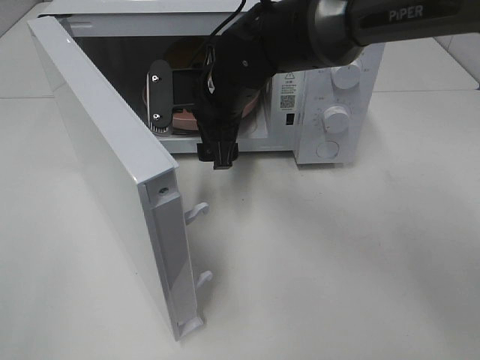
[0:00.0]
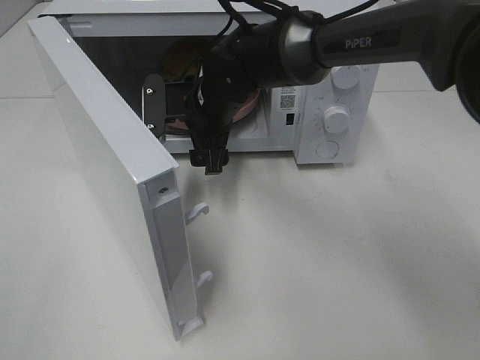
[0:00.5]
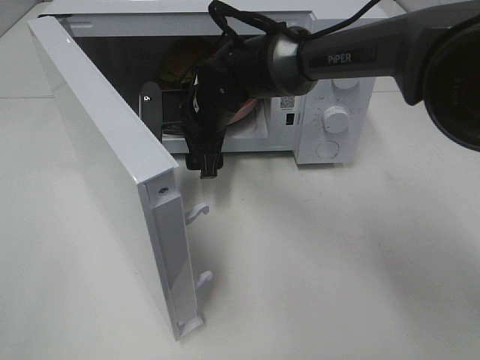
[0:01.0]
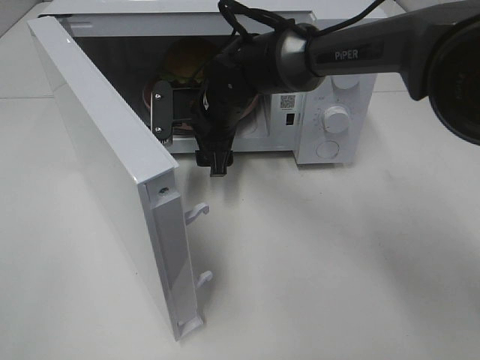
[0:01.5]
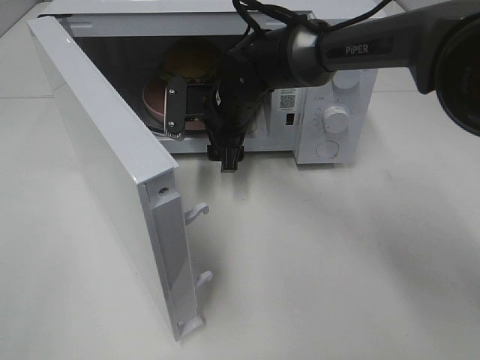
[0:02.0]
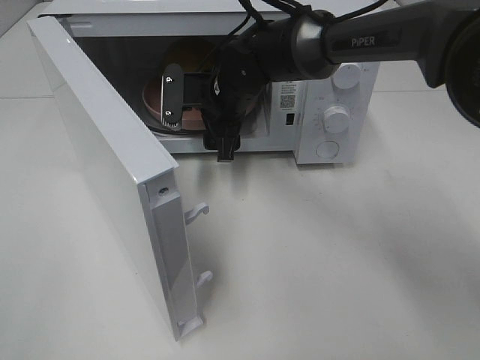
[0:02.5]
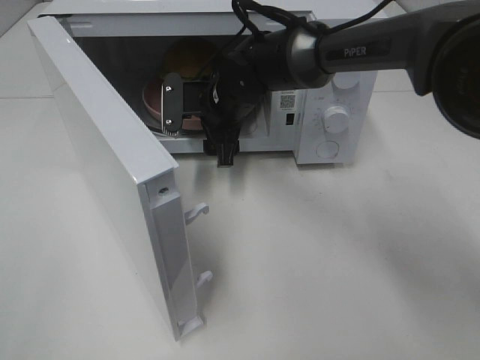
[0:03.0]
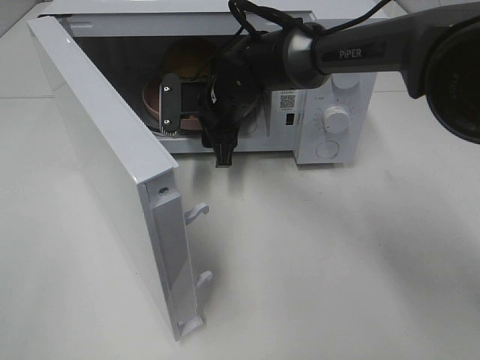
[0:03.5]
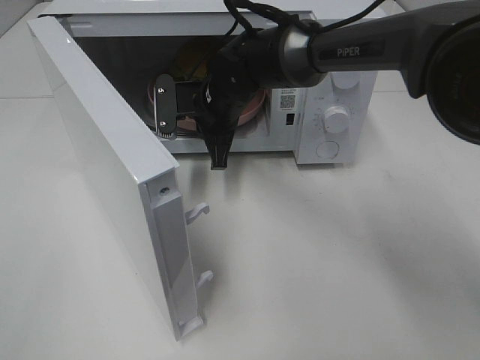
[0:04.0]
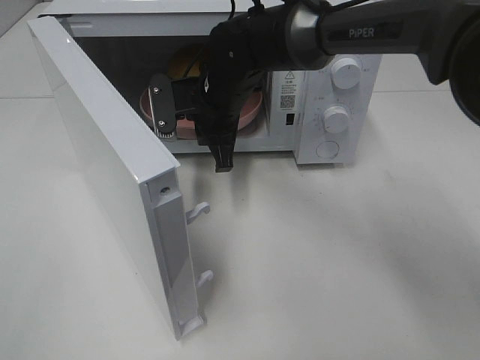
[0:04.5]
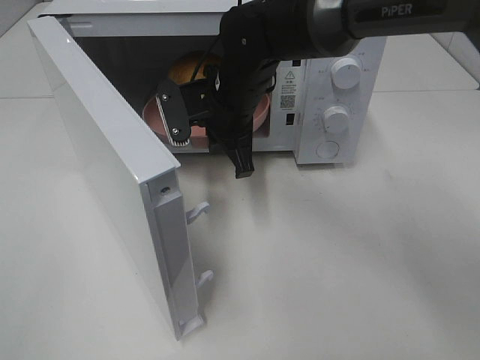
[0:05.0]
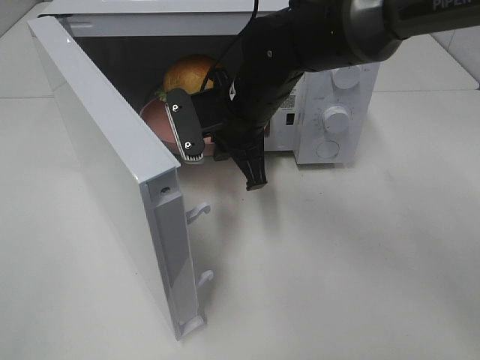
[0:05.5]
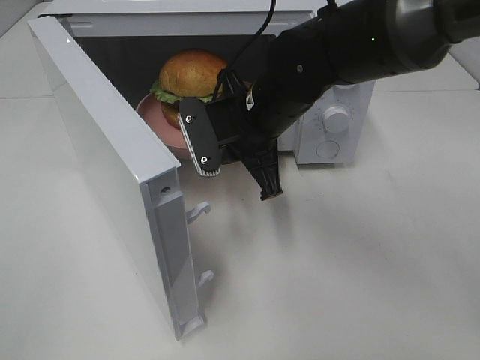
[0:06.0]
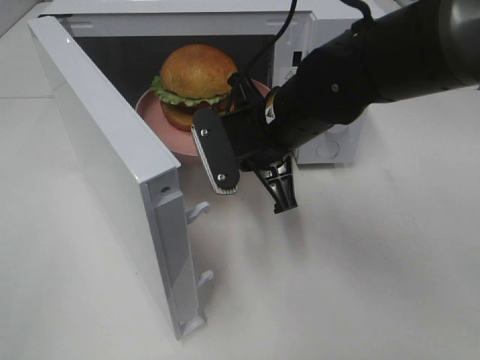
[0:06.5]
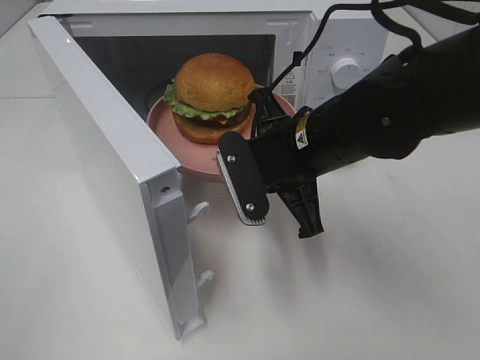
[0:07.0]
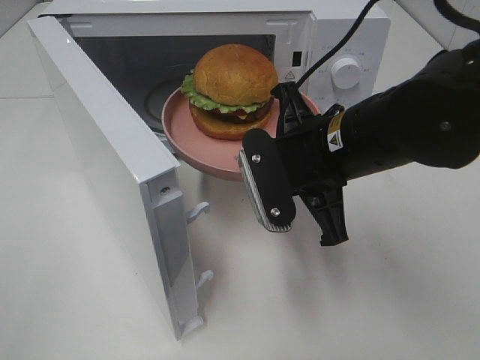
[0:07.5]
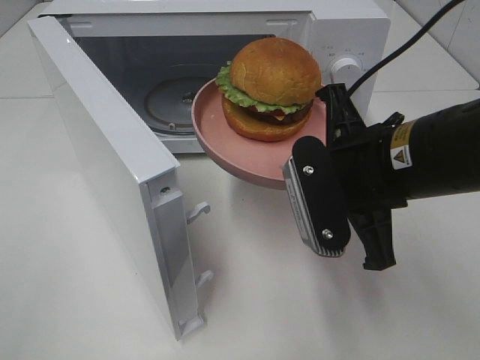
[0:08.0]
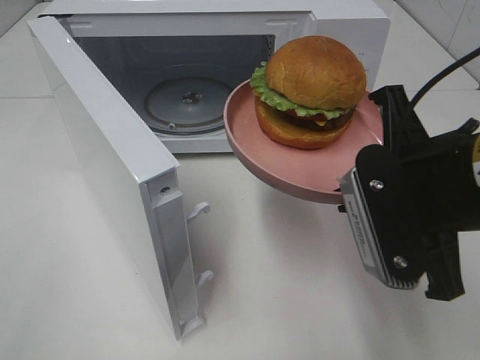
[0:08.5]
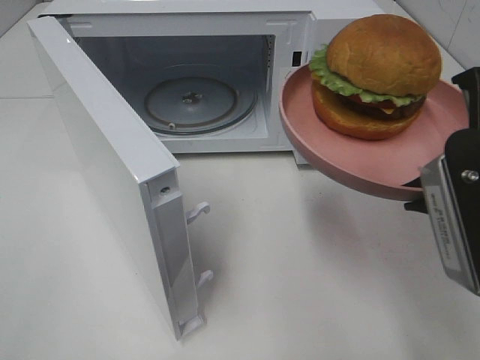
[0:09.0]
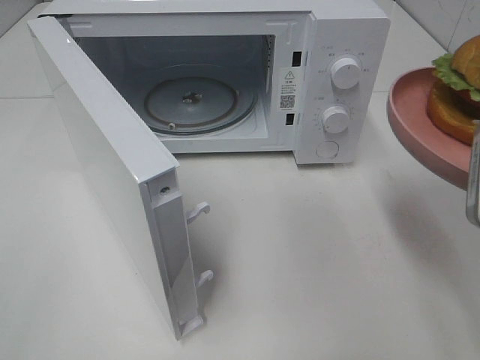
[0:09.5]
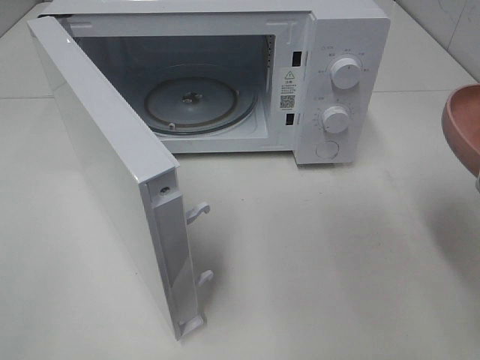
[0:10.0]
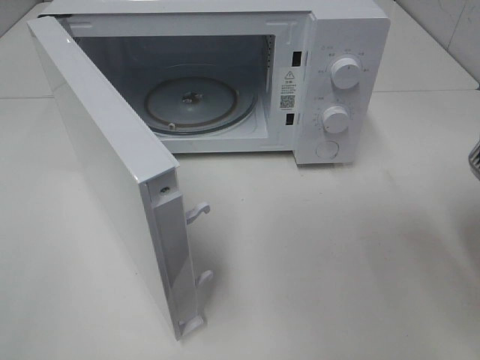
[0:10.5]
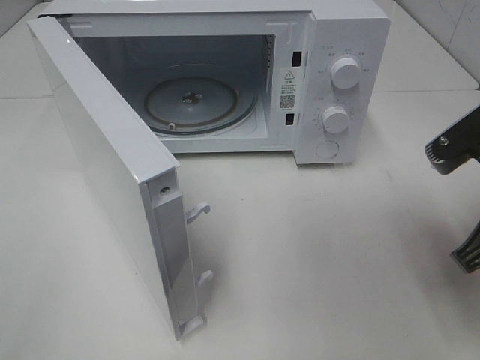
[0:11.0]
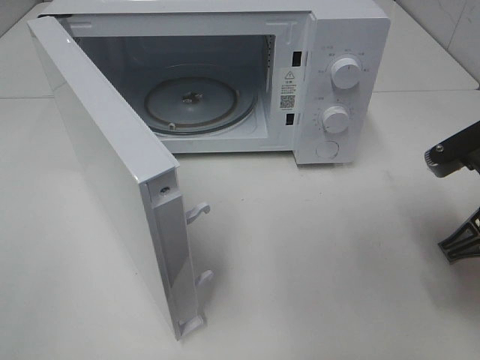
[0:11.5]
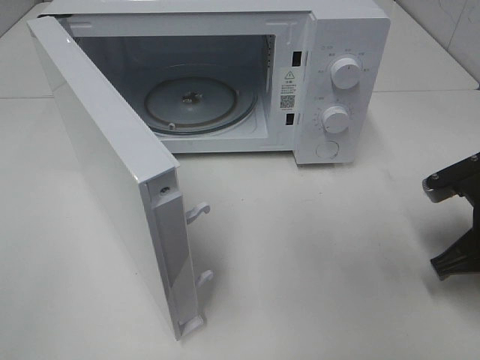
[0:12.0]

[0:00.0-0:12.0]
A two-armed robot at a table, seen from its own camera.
Task of the whole recording: Heat the burger.
Step, 0:00.0 to 0:03.5: Right hand: grab the plate with the hamburger.
0:00.0 to 0:02.0: The right gripper changes place by some 5 cm.
0:02.0 to 0:04.0: The right gripper closes up.
0:04.0 to 0:06.0: The right gripper moves backward, about 10 cm.
0:06.0 to 0:08.0: The right gripper moves backward and to the right, approximately 15 cm.
0:08.0 to 0:10.0: The right gripper shifts some 15 cm to the right and backward.
0:10.0 to 0:12.0: The right gripper goes approximately 15 cm downward and forward.

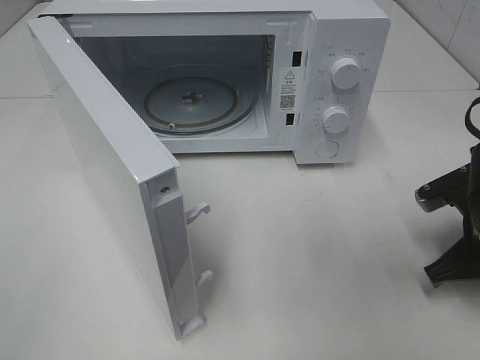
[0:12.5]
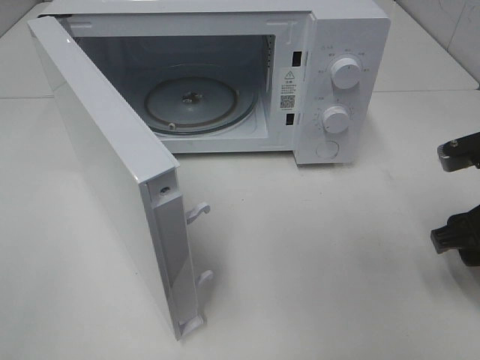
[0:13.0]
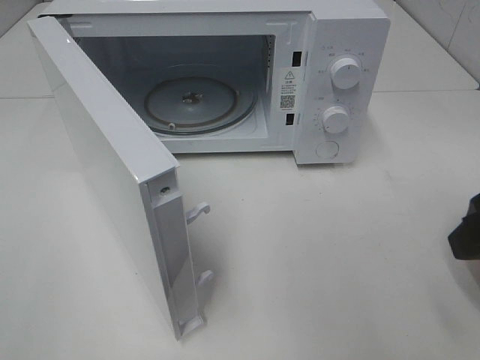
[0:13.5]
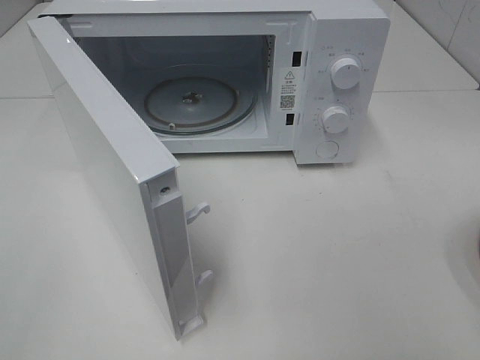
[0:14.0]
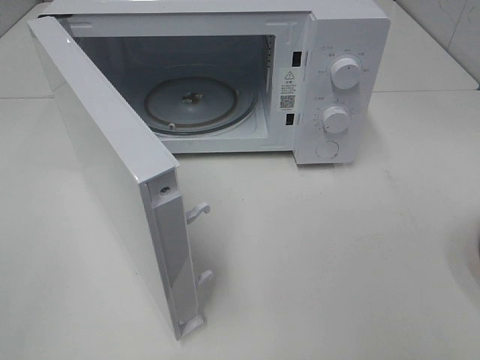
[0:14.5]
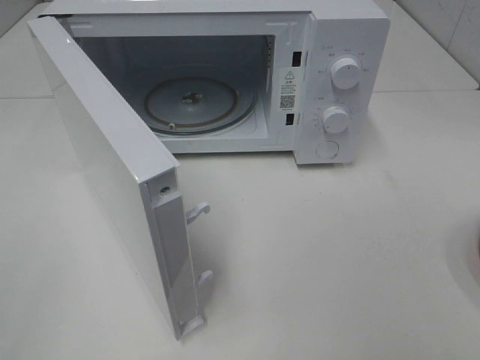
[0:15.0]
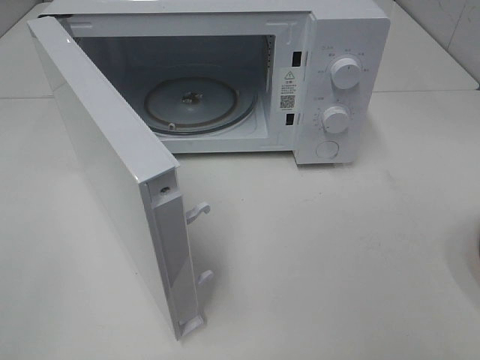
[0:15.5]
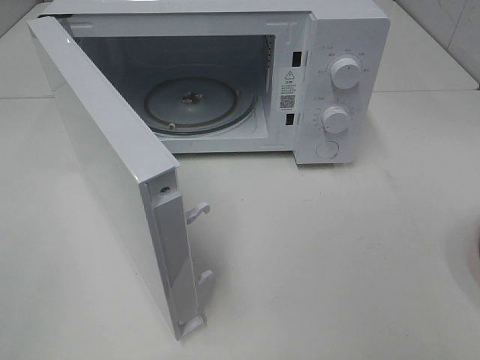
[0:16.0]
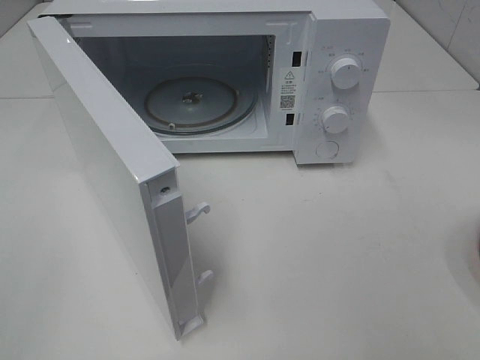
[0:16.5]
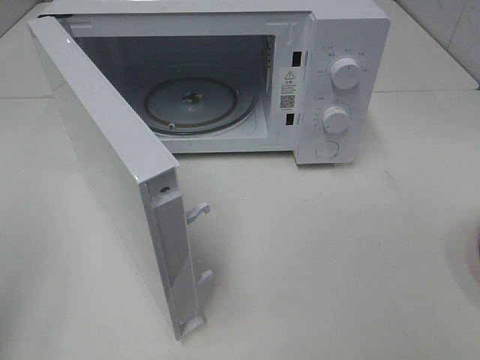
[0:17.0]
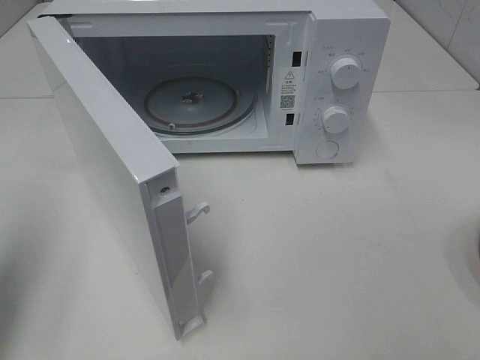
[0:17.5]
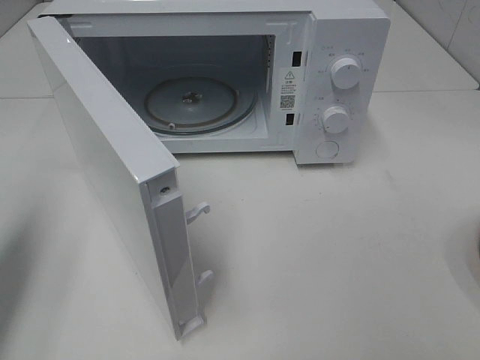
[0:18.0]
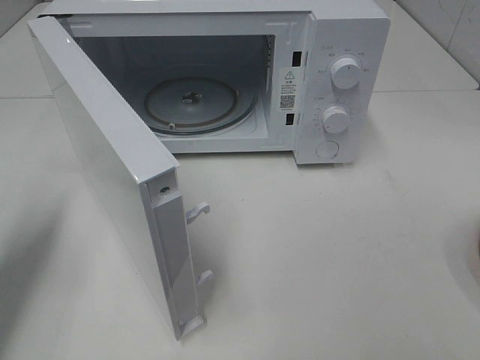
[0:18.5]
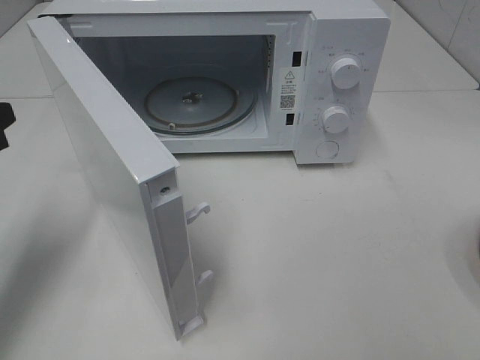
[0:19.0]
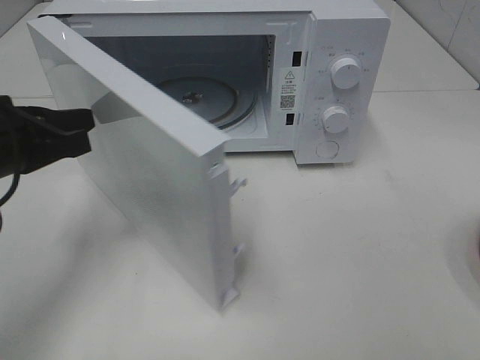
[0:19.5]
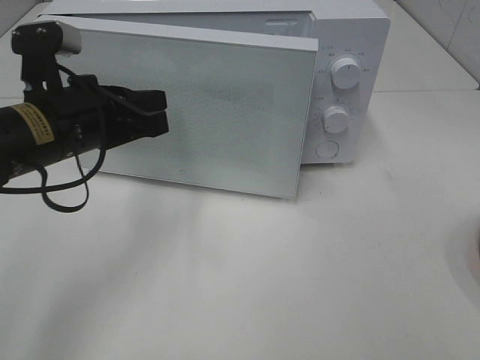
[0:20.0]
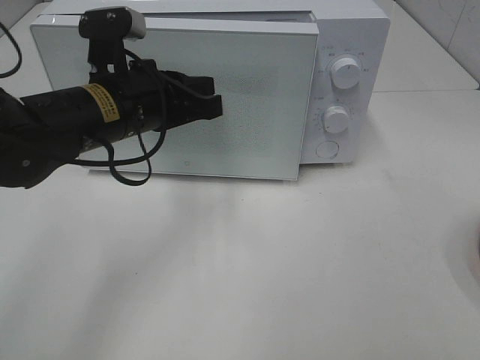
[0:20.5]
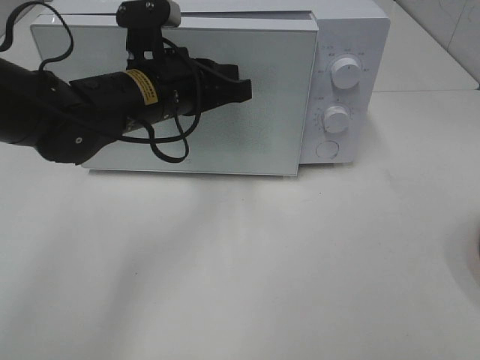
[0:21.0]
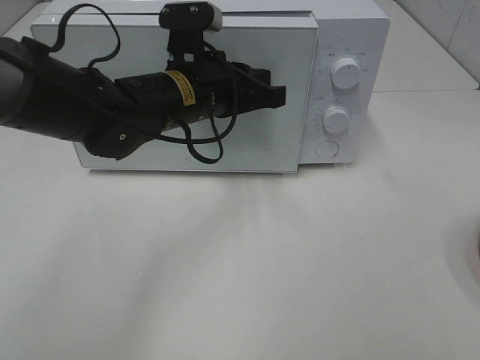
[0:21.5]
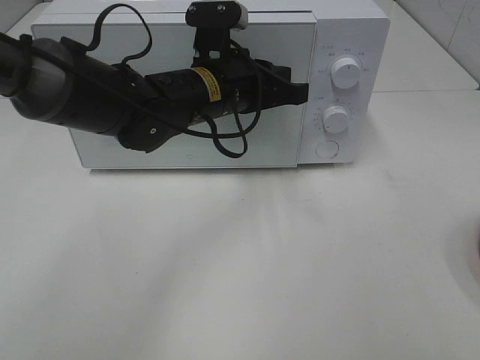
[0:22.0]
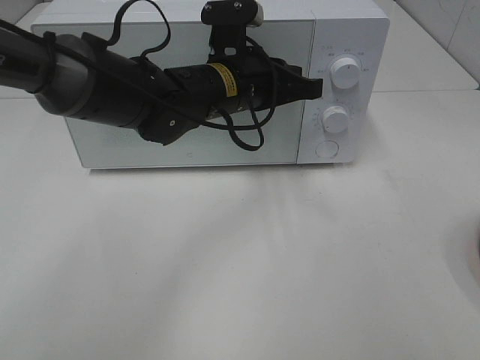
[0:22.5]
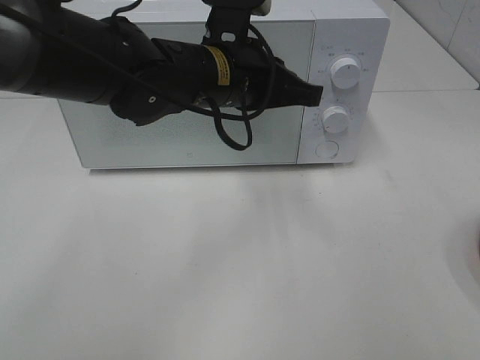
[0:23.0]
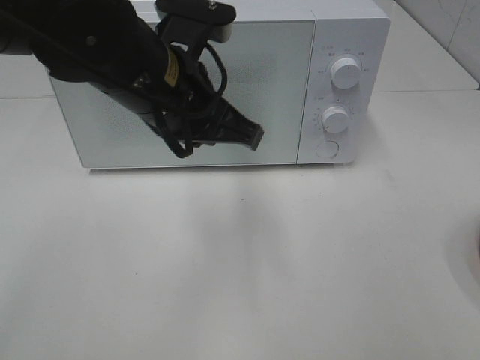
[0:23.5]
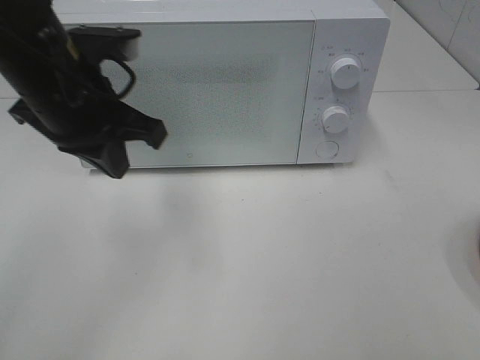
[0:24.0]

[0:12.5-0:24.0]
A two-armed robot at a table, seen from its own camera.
Task of the whole recording: Heat the burger.
Step, 0:13.0 to 0:22.5: Left hand: close the microwave door.
0:12.5 to 0:14.5: The right gripper goes roughly 30 cm backward and upward, and opens up.
0:16.5 to 0:18.5: The left gripper is displaced forward by some 20 cm, and closes its fingers.
0:18.5 to 0:20.0: The left gripper goes roughly 15 cm to the right and forward.
0:20.0 to 0:22.0: The left gripper travels to the right and forward by some 15 cm.
0:22.0 to 0:24.0: The left gripper travels to the left, backward and upward by roughly 15 cm.

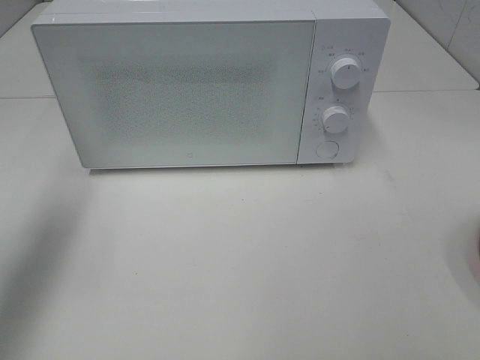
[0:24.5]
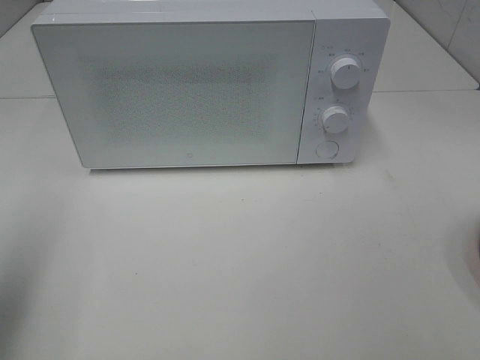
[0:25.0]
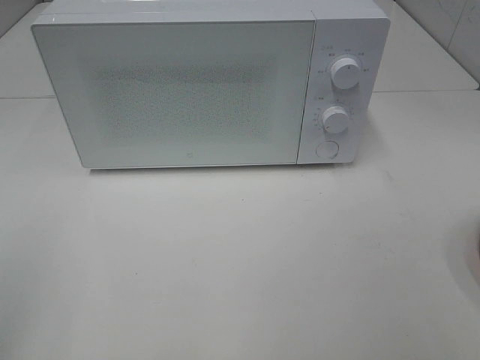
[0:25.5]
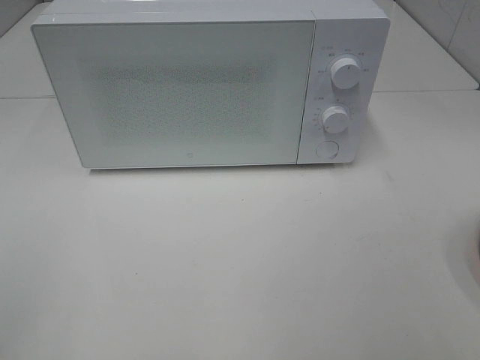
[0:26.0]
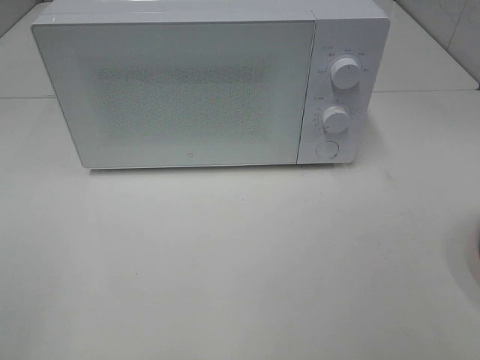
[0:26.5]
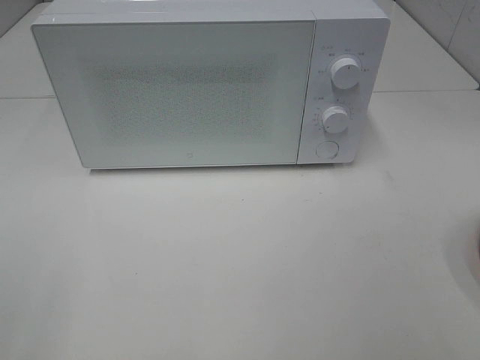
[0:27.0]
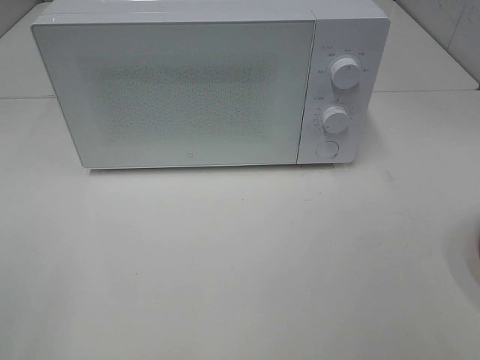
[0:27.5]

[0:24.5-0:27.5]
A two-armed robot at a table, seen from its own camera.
Task of the whole recording: Heat the burger.
0:24.5 to 0:26.0: The left gripper travels backward by approximately 25 cm.
